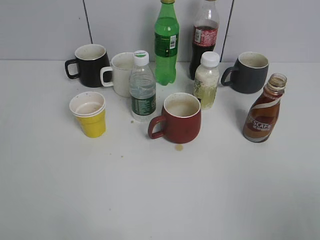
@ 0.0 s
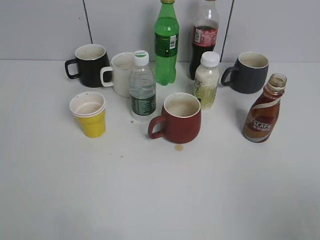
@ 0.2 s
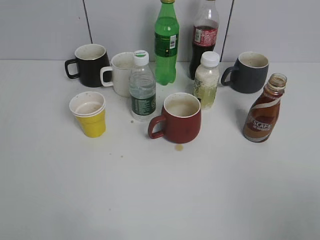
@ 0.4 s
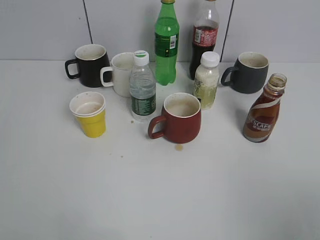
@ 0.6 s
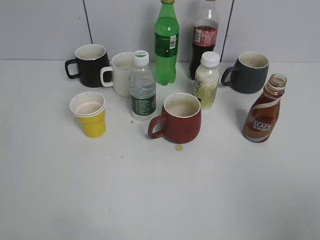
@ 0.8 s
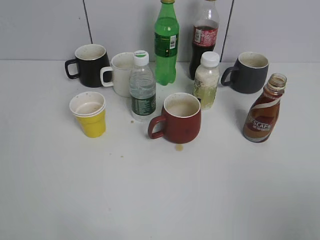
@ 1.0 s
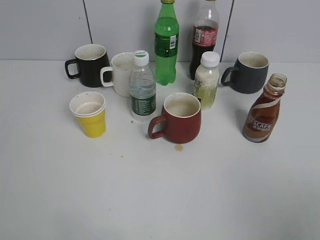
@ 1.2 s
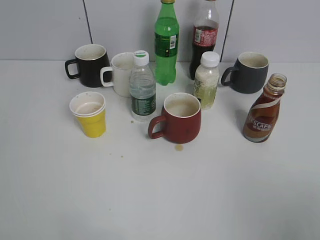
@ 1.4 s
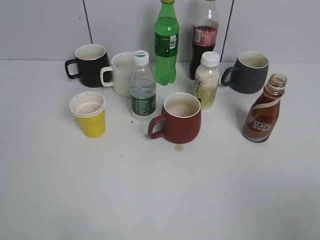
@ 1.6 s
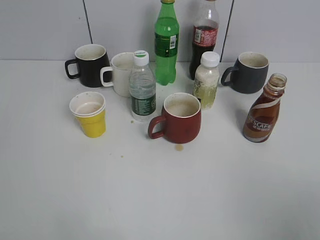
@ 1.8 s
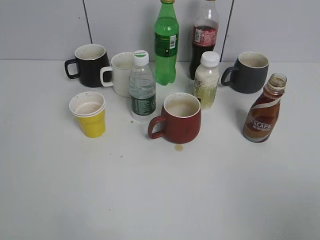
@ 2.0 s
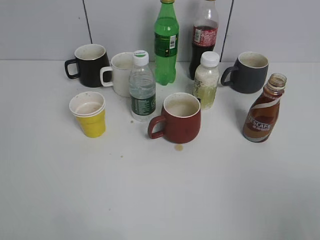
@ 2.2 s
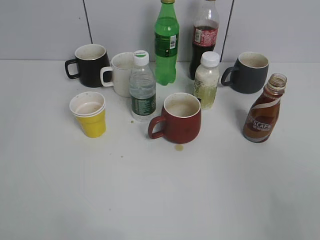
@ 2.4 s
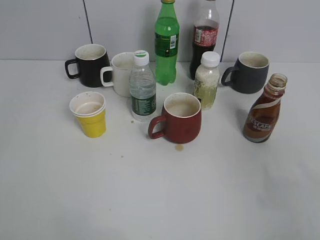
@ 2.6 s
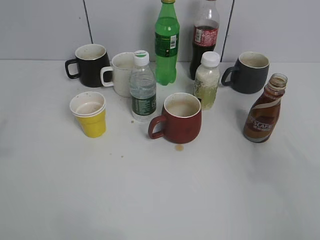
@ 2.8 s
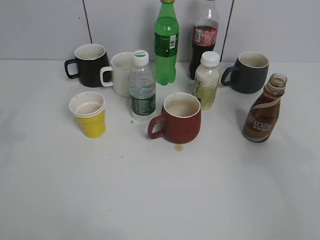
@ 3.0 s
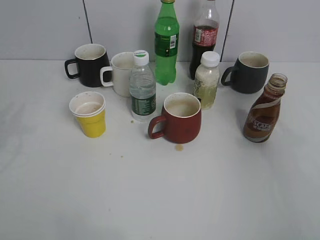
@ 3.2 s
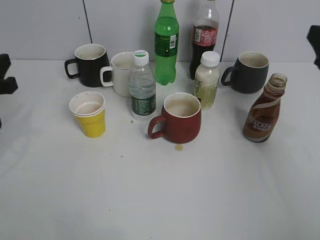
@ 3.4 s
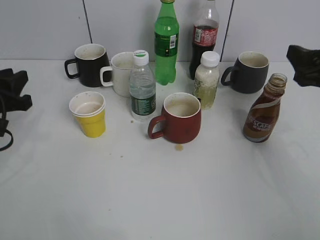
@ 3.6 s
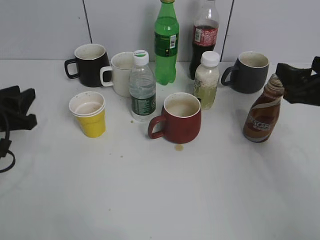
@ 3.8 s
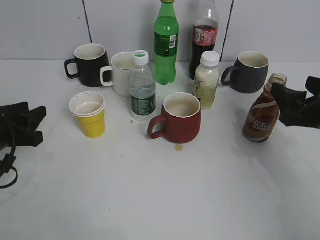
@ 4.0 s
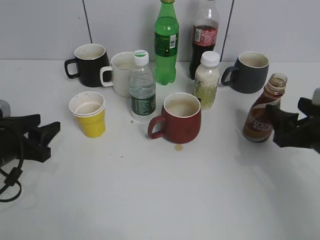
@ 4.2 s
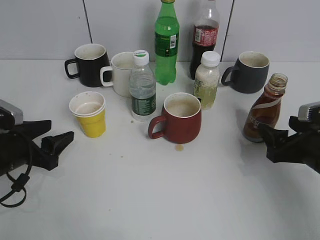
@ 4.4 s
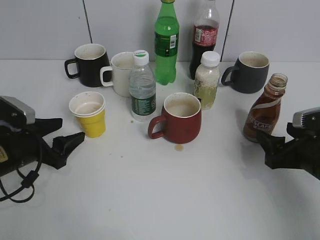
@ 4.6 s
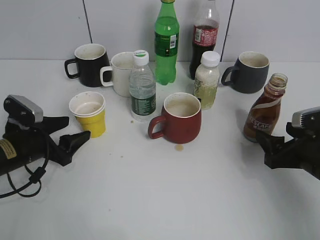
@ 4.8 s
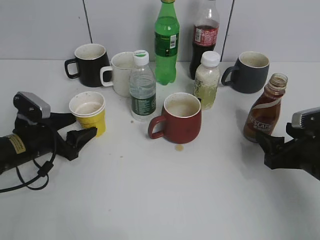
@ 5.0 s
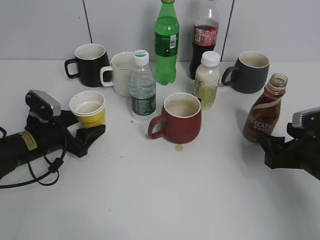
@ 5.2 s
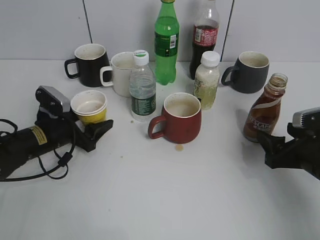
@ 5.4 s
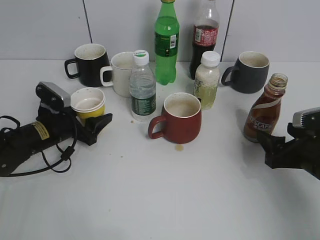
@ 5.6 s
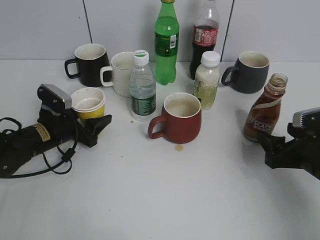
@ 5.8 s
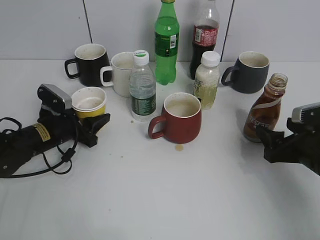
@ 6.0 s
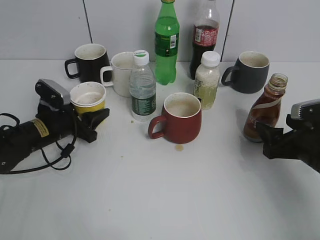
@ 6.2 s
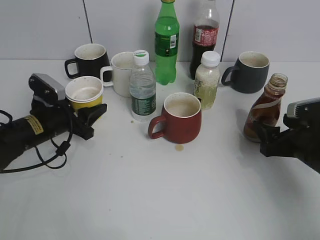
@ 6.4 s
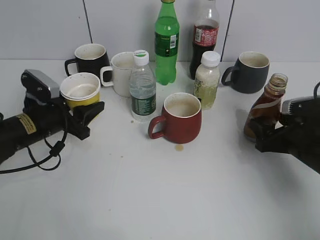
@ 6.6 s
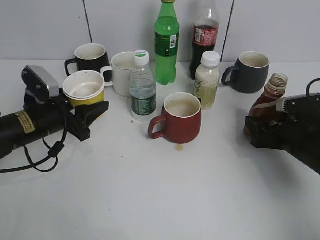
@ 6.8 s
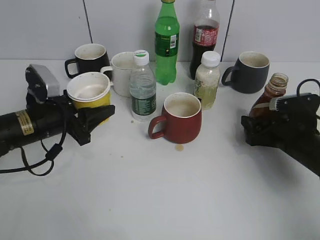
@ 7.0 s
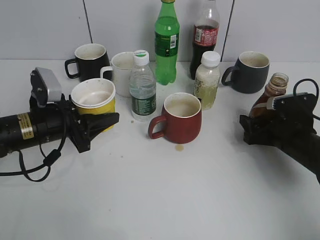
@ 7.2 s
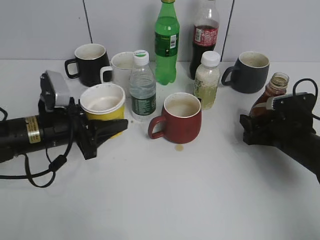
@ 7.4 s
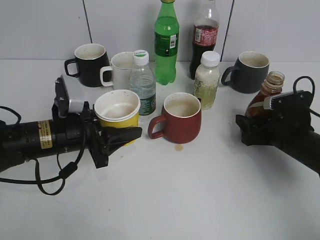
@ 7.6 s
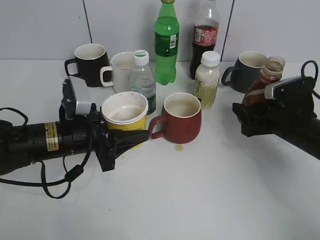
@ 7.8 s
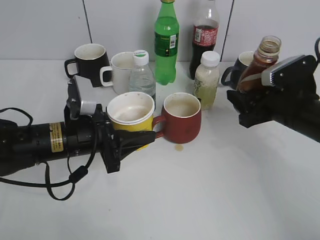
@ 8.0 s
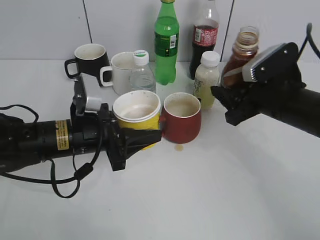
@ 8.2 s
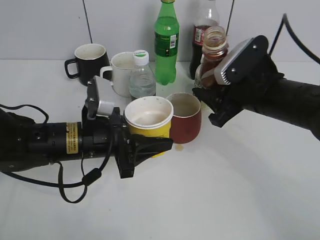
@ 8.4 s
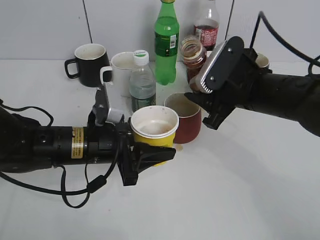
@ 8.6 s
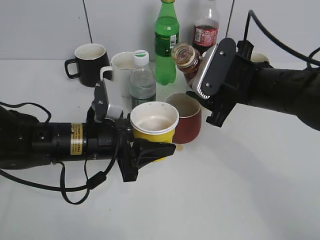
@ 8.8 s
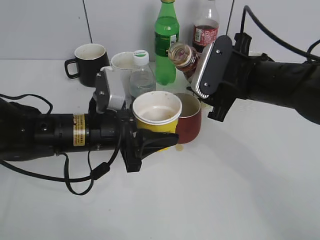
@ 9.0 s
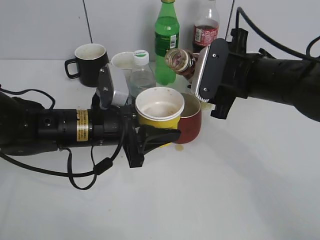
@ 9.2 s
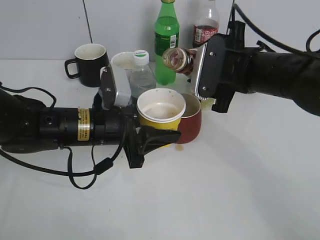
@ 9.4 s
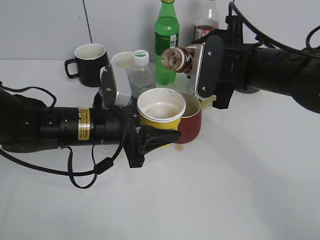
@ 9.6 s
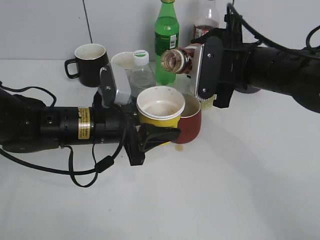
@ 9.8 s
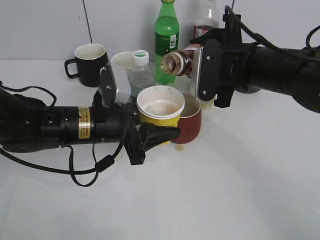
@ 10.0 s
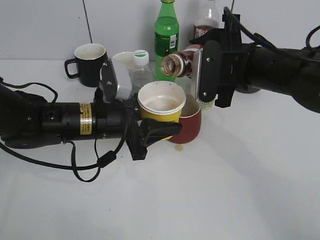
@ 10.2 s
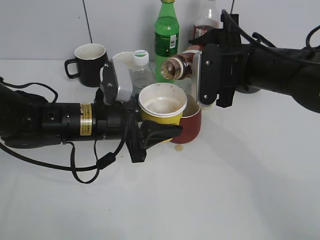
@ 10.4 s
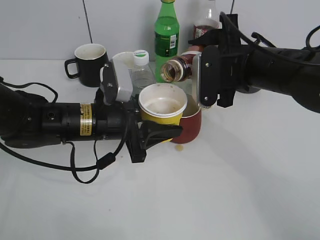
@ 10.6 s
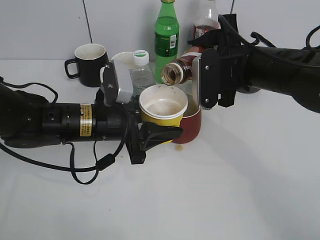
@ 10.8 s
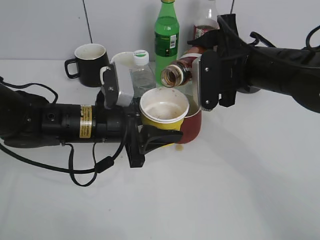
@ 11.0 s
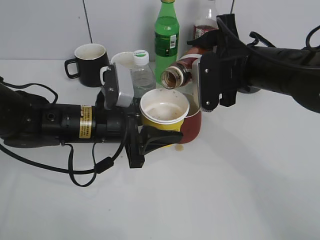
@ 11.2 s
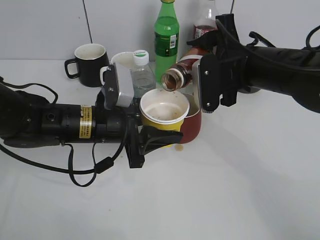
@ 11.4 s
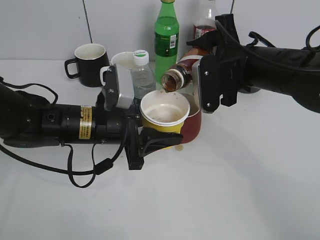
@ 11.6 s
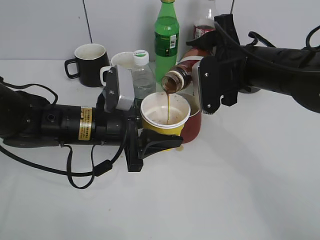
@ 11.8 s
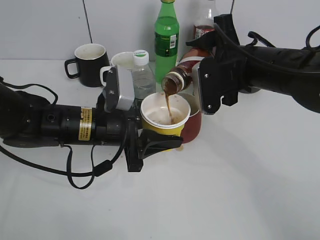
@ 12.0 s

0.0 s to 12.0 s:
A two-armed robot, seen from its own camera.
Step, 2.0 to 6.0 s: Grasp the yellow paper cup with left gripper.
Step, 6.2 to 6.4 s: Lift the yellow paper cup with left gripper.
Step, 6.6 to 7.6 s: Grasp the bottle with coffee with right gripper.
1.6 to 3.0 s: The right gripper heads forward, covering some 15 cm.
3.0 to 4.4 s: The two grippers go roughly 20 cm downward. The left gripper opens.
4.4 to 6.0 s: The left gripper heads forward, covering approximately 10 cm.
6.0 to 7.6 s: The right gripper moves forward, about 5 cm, and closes, while the left gripper heads upward, backward and to the right, covering some 10 cm.
7.6 to 9.0 s: The left gripper moves to the right, about 5 cm, while the right gripper heads upward and to the left, covering roughly 15 cm.
10.4 to 12.0 s: There are only small adjustments of the grippers.

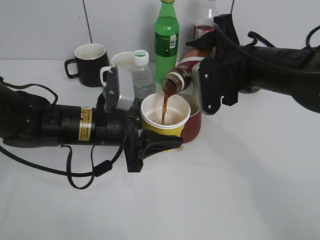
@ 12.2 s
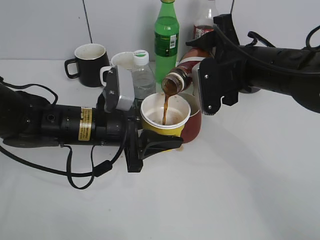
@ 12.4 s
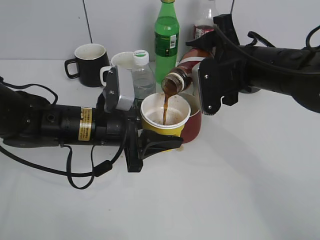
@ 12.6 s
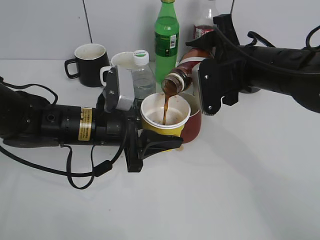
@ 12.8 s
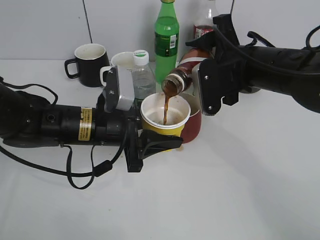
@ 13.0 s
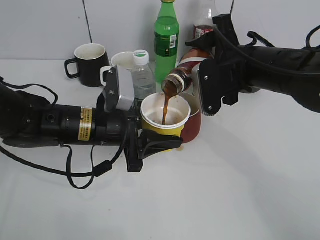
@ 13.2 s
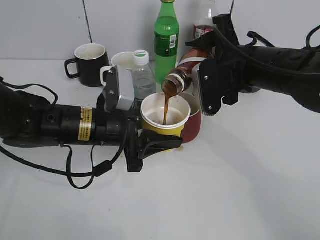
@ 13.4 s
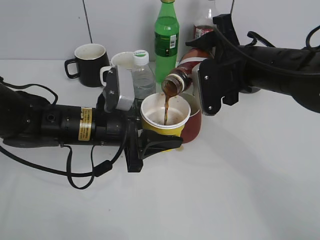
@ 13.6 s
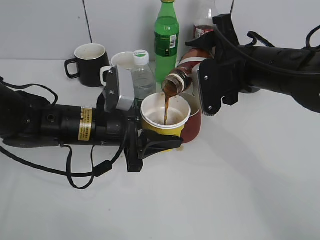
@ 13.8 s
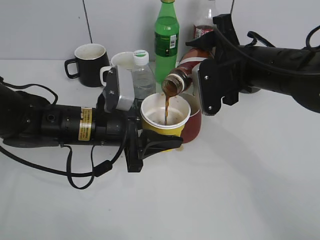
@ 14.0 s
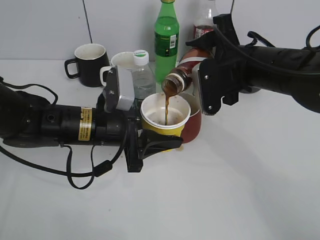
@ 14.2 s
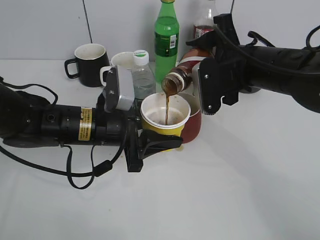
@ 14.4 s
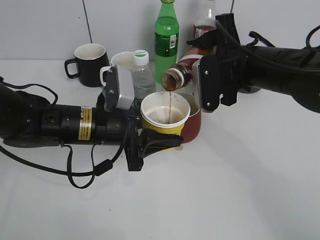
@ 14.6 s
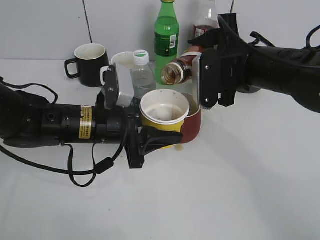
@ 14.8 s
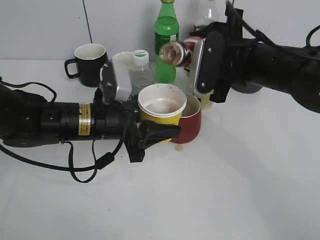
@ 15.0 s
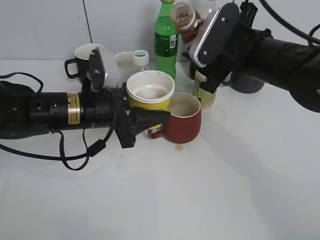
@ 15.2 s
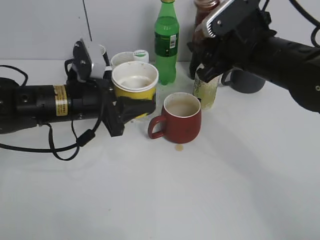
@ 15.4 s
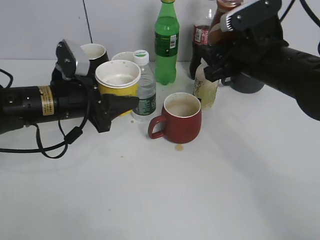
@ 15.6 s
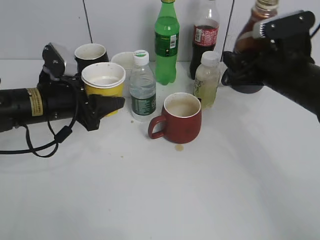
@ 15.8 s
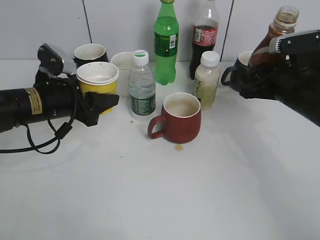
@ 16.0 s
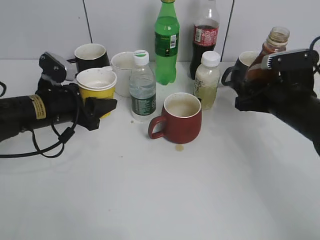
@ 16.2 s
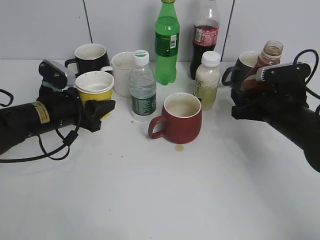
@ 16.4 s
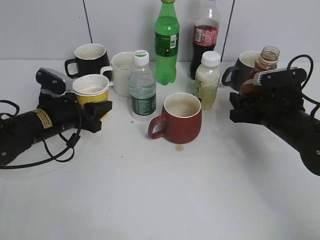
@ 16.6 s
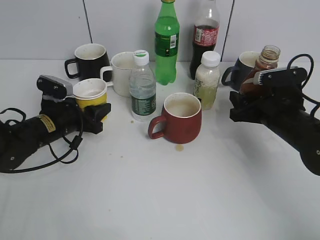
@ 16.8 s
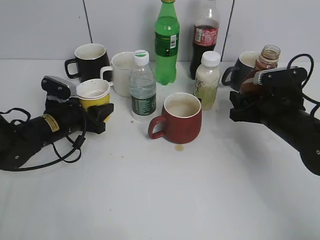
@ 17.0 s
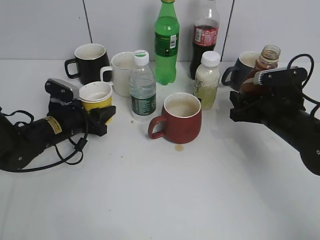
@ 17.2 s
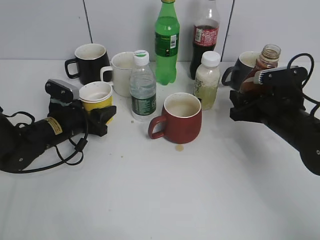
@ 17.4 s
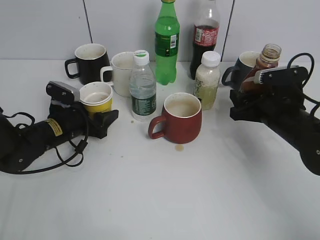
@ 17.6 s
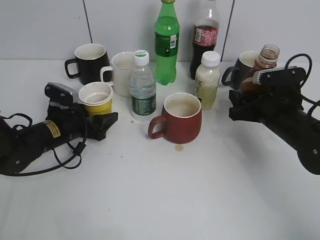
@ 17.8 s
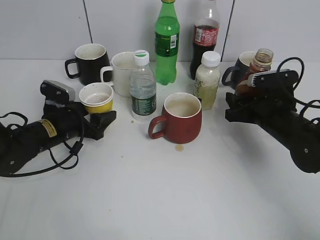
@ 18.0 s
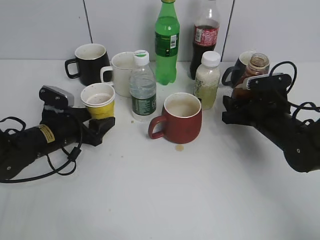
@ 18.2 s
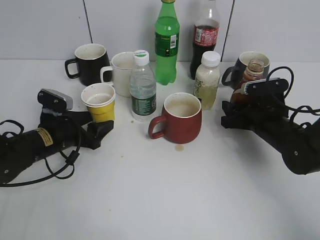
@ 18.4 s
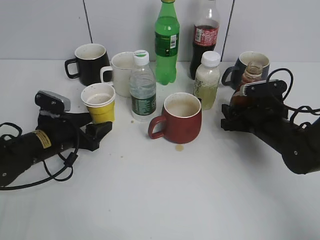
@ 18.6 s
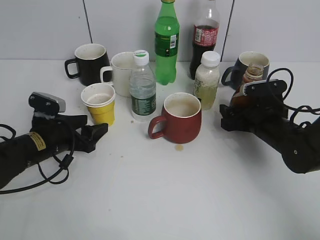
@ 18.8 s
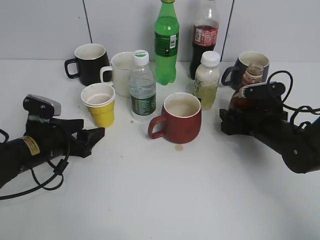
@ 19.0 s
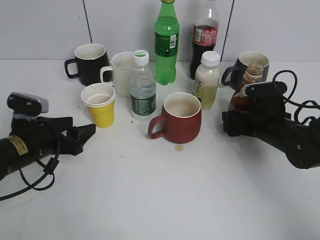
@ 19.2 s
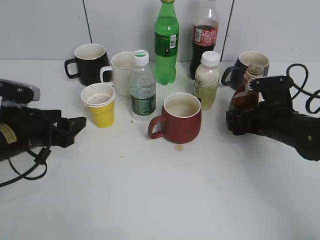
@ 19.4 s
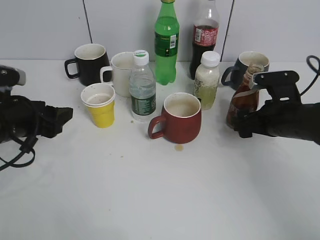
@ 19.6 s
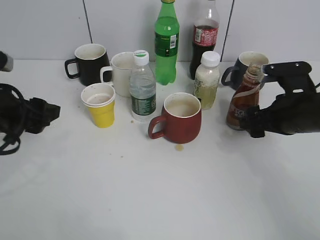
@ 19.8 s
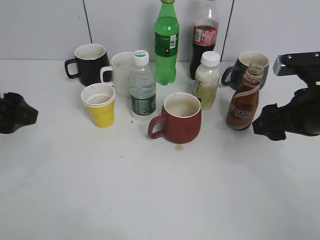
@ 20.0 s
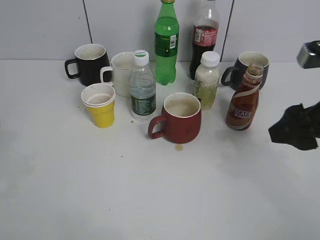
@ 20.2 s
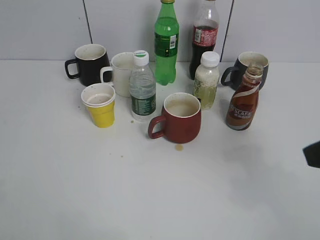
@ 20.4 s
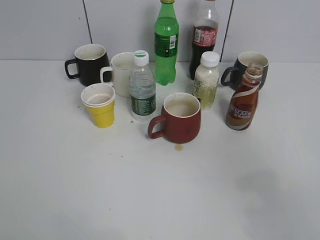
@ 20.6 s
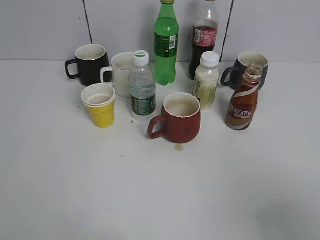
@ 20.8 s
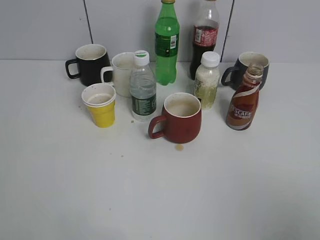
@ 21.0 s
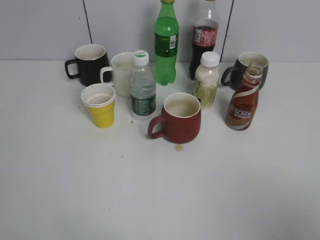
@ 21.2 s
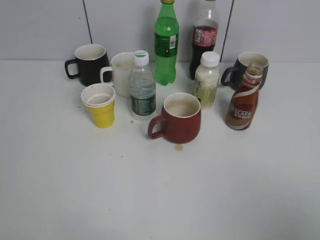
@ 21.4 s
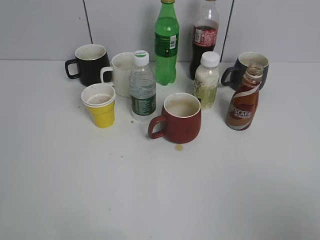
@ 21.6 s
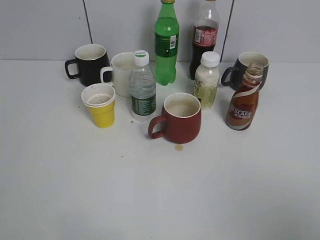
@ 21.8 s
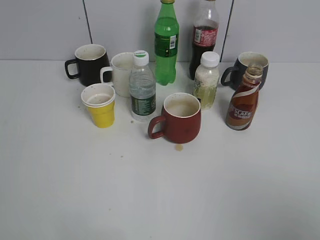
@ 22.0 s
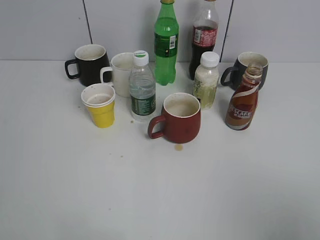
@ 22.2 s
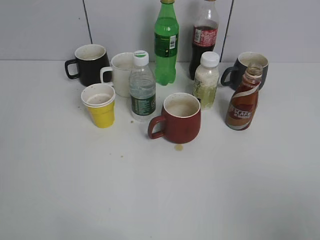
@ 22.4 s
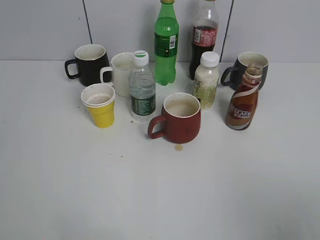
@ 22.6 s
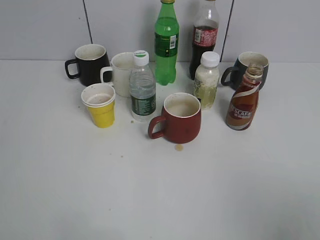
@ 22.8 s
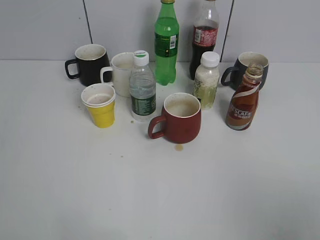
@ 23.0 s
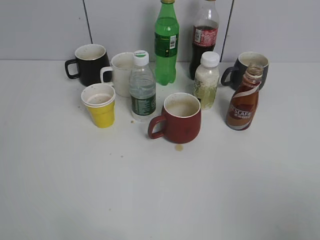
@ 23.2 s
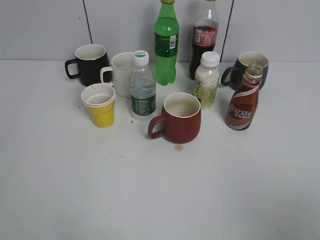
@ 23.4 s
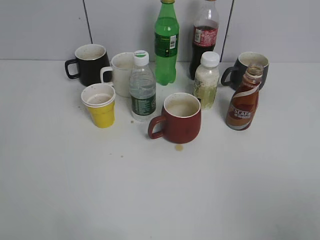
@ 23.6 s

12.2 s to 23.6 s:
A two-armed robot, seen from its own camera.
Step, 12.2 to 15.4 s: Pour the coffee from bottle to cup with right gripper.
Step, 15.6 to 19.4 s: Place the coffee bottle on the table with right gripper.
12.2 to 13.6 s: Both grippers stay put.
15.0 to 16.4 s: The left gripper is displaced to the left and forward by some 10 cm. Meanwhile the right gripper travels downward and to the right by roughly 15 cm.
16.4 to 17.8 s: The left gripper shifts some 5 cm downward, and opens up.
17.8 to 19.4 s: The left gripper moves backward and upward, about 10 cm. Meanwhile the right gripper opens.
19.4 to 20.8 s: The grippers both shift backward and upward by about 35 cm. The right gripper closes up.
